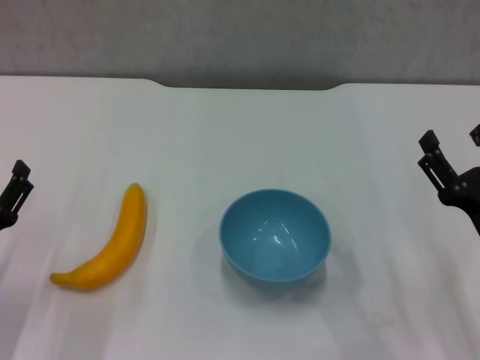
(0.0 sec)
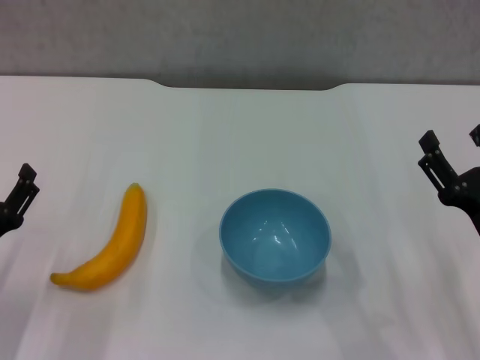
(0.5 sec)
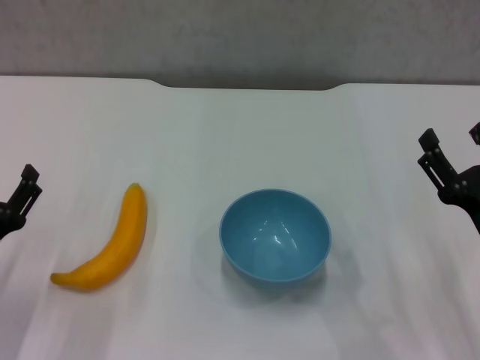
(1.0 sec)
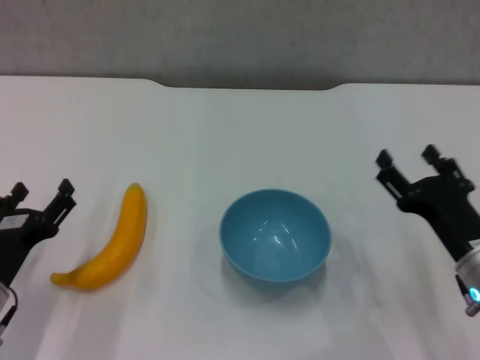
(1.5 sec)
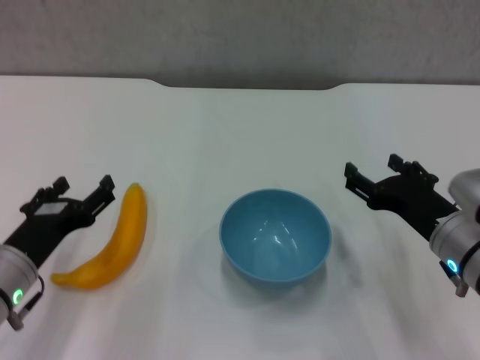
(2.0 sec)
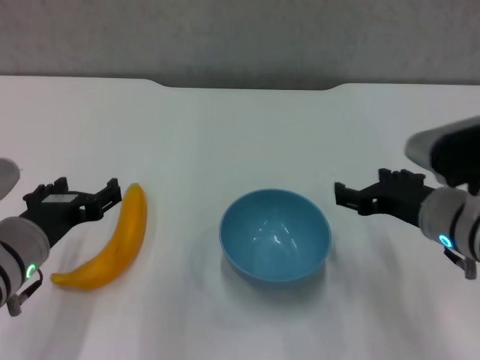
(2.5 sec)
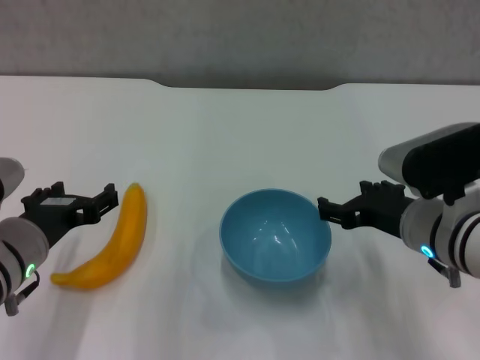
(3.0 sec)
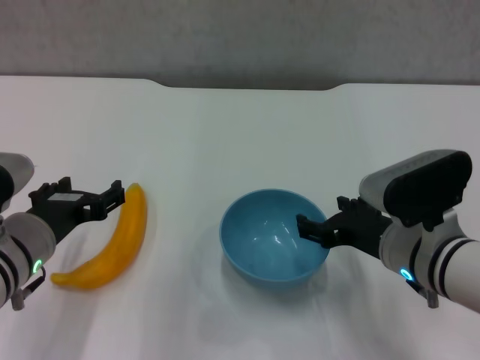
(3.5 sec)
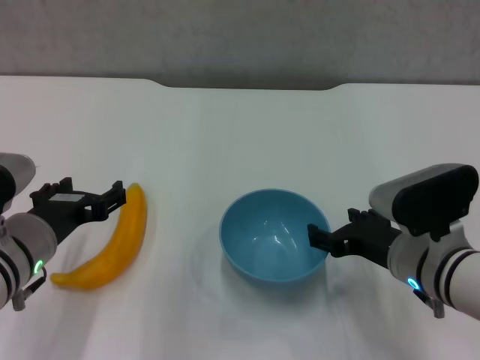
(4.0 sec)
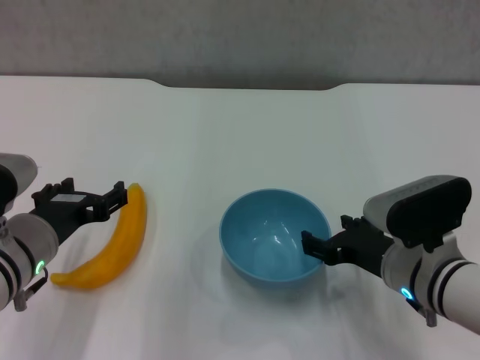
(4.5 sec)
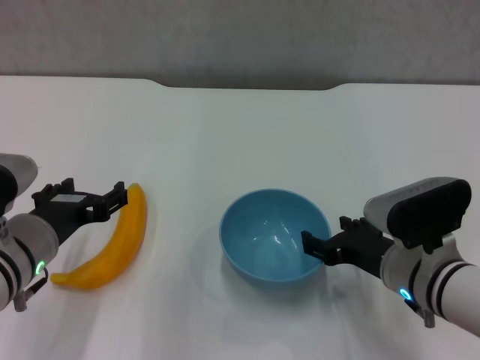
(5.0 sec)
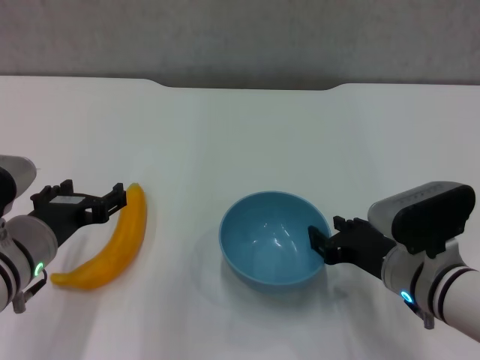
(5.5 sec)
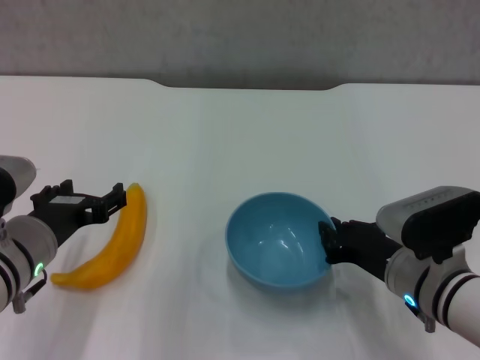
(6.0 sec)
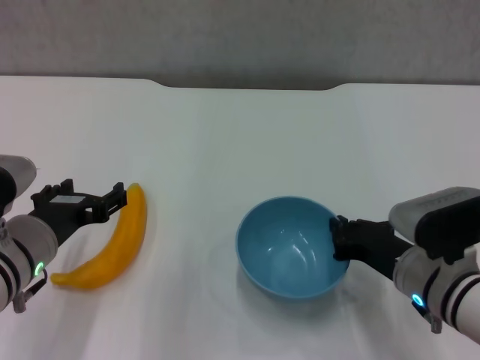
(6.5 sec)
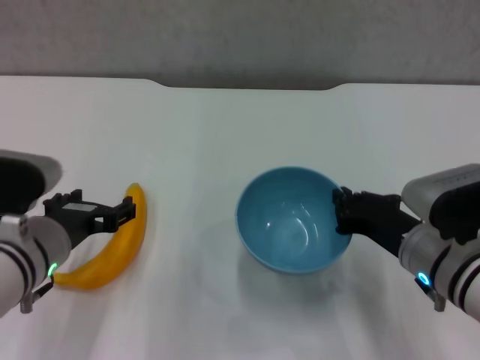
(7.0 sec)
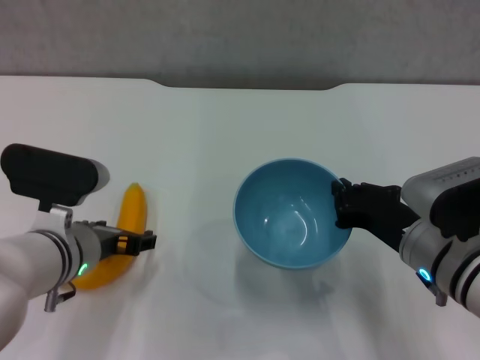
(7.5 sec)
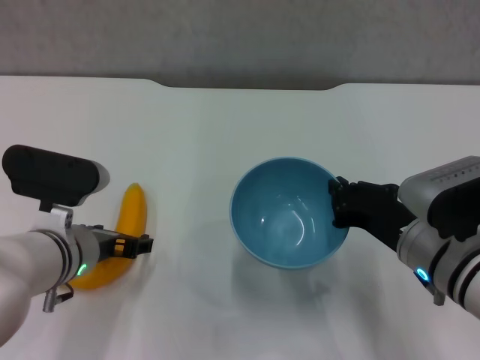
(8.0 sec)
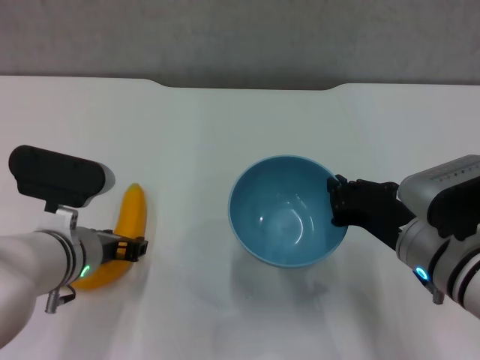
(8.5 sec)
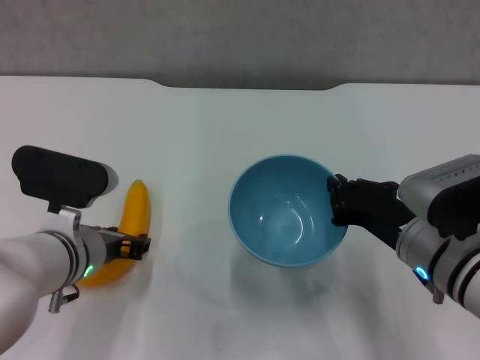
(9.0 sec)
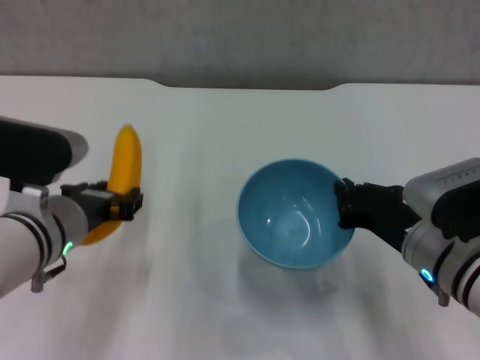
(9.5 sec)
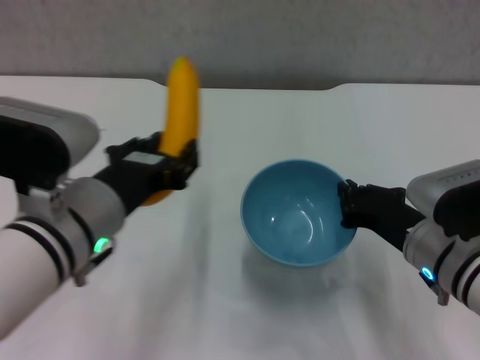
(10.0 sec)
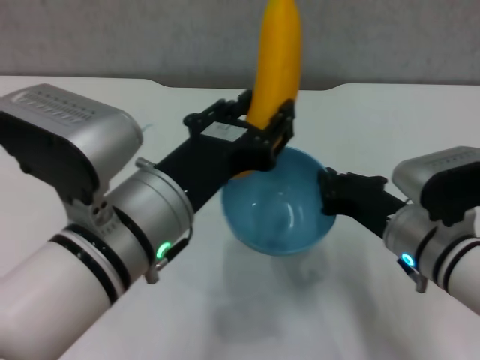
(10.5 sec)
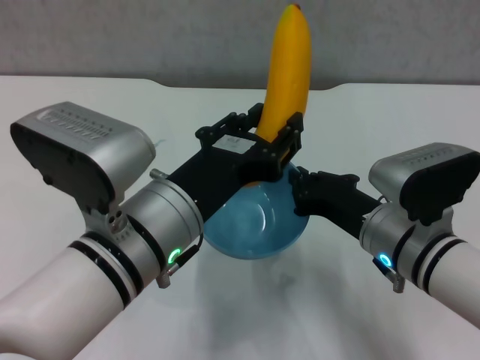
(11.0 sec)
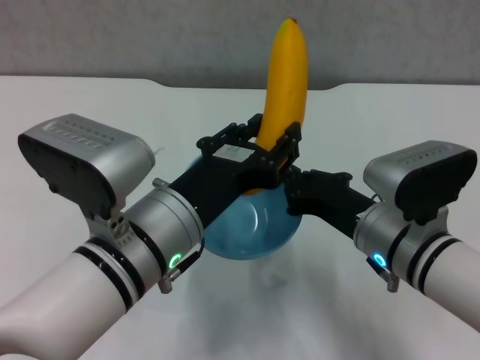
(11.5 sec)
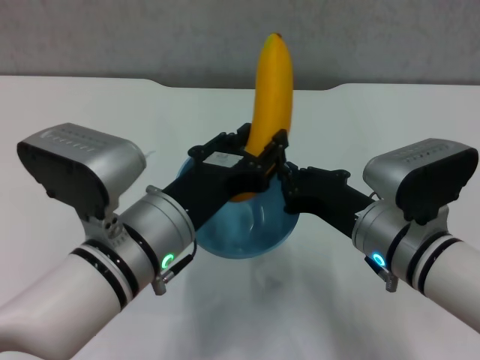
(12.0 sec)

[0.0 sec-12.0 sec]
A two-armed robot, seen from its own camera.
Step, 0.0 sec to 6.0 sec: Grasp the blue bowl with right gripper.
Step, 7.5 sec to 8.5 sec: Grasp the banana with left gripper.
0.0 sec to 2.0 sec: The left gripper shifts by some 5 cm; the right gripper goes some 5 cm forward.
2.0 sec to 4.0 sec: The left gripper changes place by about 5 cm.
4.0 sec to 6.0 sec: The right gripper closes up.
6.0 sec to 8.0 sec: The left gripper shifts by some 5 cm.
8.0 sec to 10.0 sec: The left gripper shifts some 10 cm upward and backward, and closes.
10.0 sec to 12.0 sec: The right gripper travels to the left by approximately 5 cm.

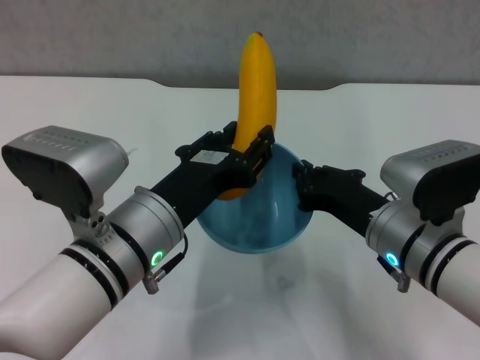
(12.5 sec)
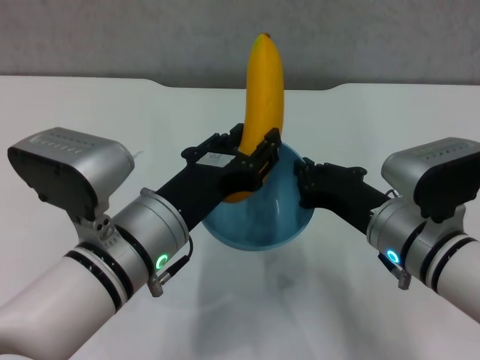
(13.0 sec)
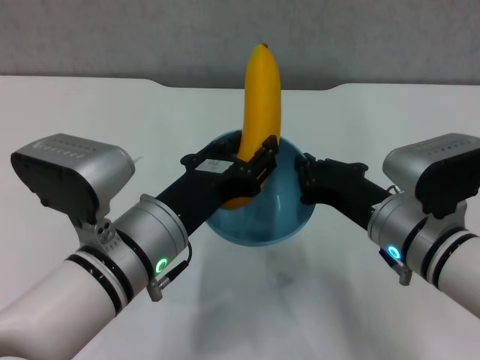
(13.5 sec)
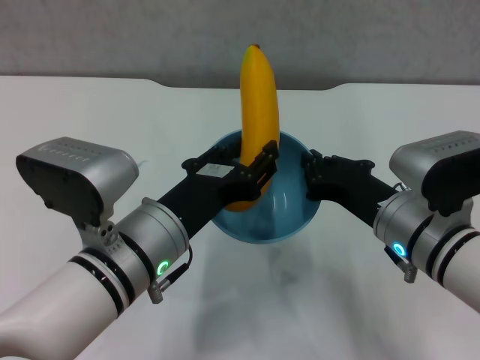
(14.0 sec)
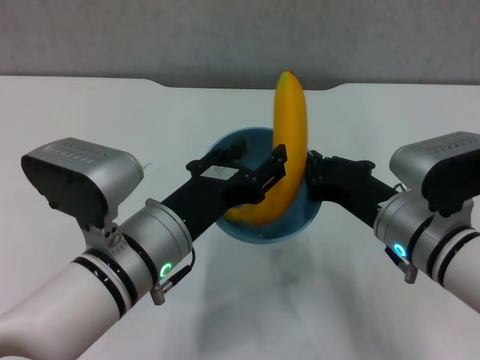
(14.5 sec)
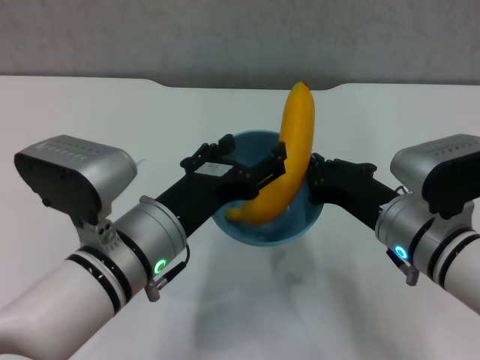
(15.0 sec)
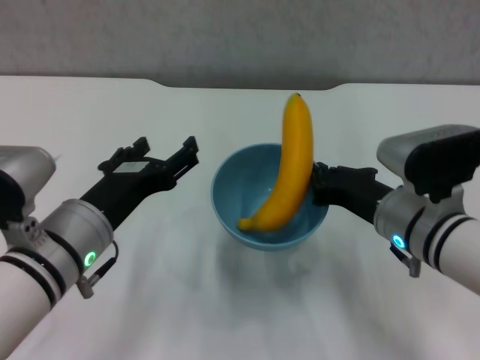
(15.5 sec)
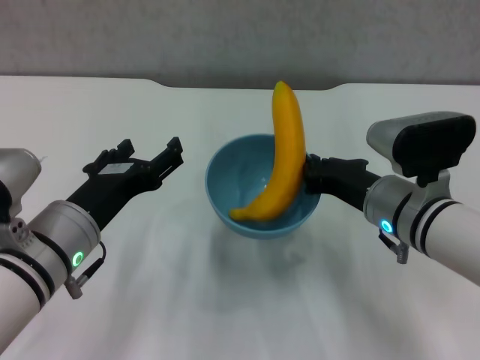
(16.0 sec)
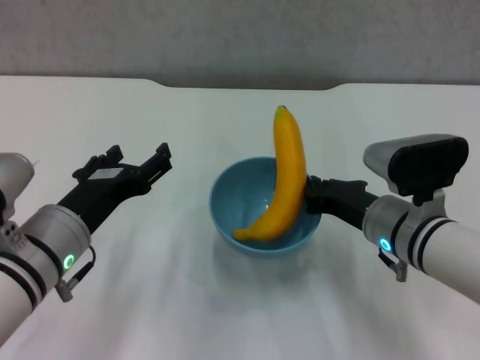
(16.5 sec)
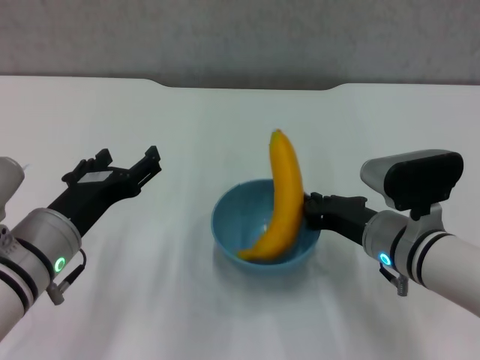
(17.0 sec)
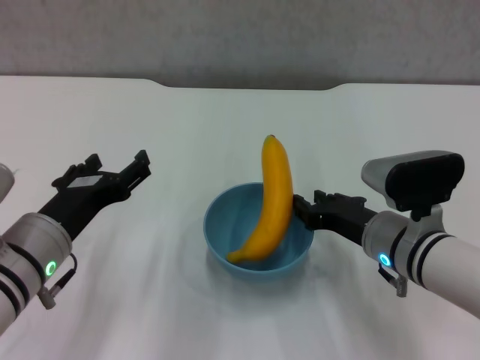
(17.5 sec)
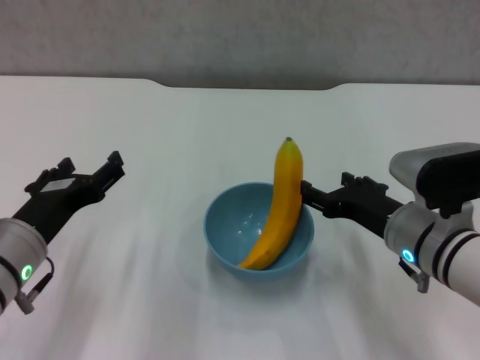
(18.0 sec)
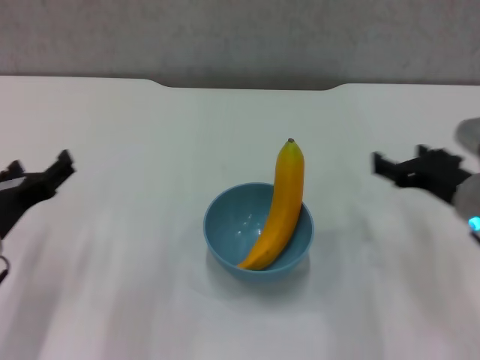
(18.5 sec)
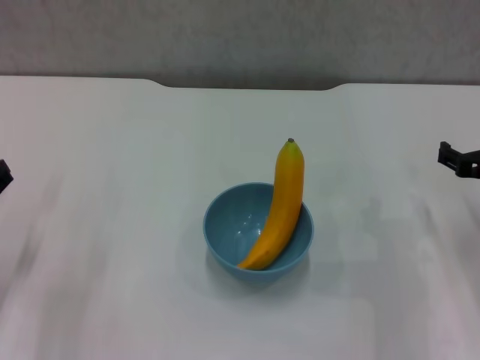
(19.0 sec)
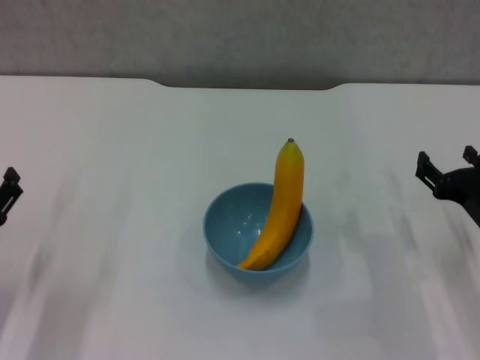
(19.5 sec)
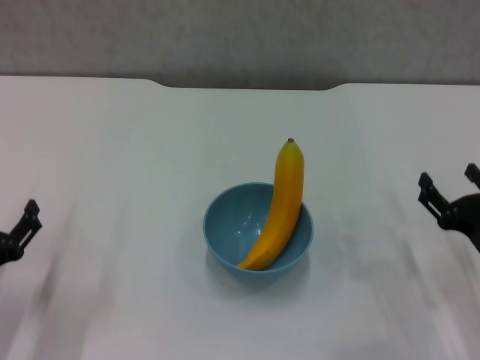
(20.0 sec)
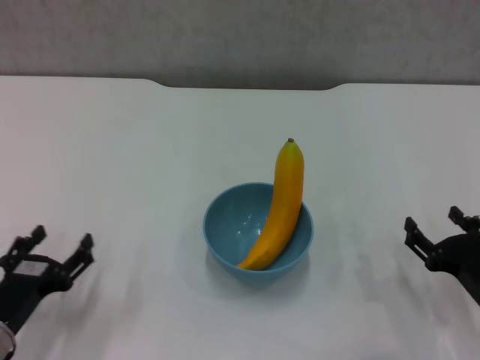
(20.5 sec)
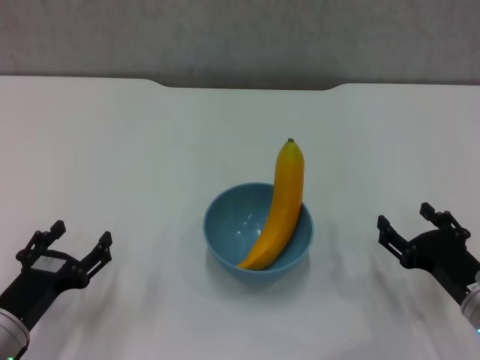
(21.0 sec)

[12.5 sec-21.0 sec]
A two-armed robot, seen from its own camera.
Step, 12.5 sec to 15.0 sec: Place the banana in the blue bowl with left gripper.
Step, 15.5 sec to 17.5 sec: Place the bowl on the table with right gripper.
14.5 sec to 16.5 sec: The left gripper shifts about 10 cm to the left, and opens its fingers.
16.5 sec to 19.0 sec: The right gripper heads to the right, covering some 15 cm, and opens up. The left gripper goes roughly 15 cm to the left.
19.0 sec to 21.0 sec: The left gripper goes about 5 cm downward. Meanwhile the right gripper goes some 10 cm backward and downward.
